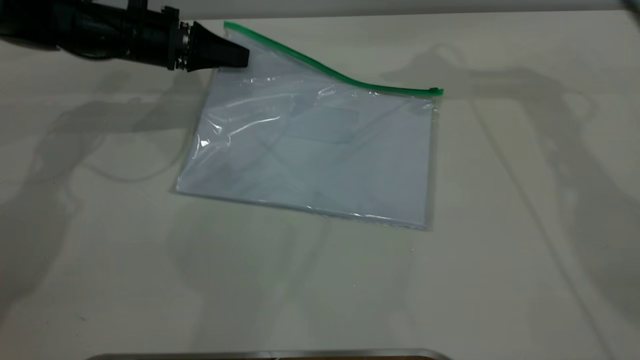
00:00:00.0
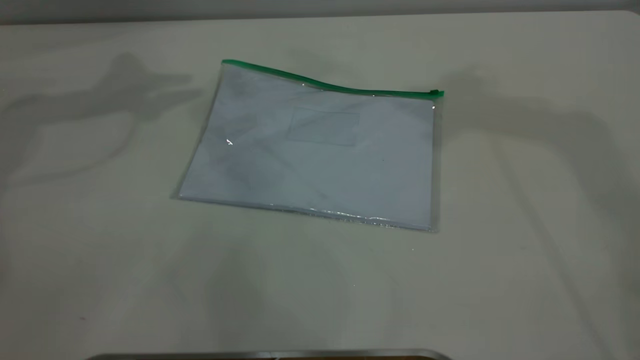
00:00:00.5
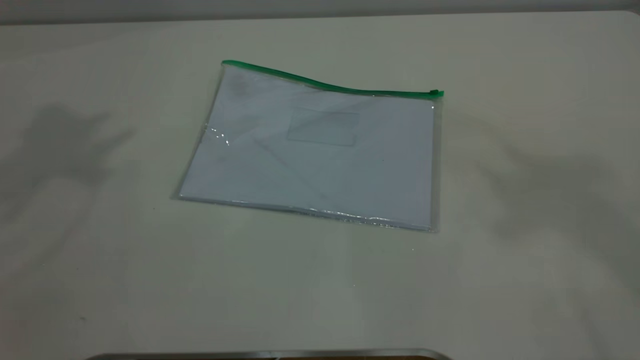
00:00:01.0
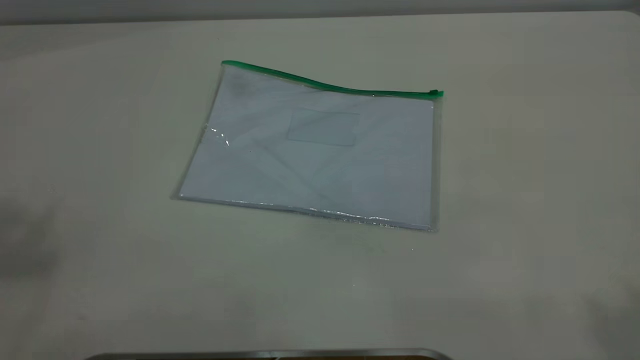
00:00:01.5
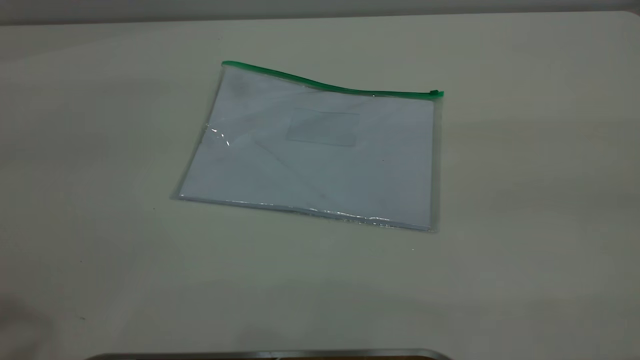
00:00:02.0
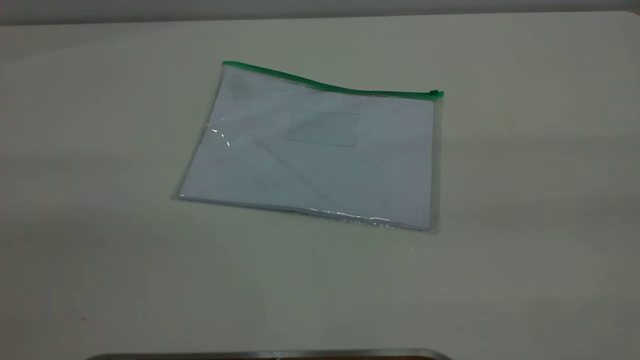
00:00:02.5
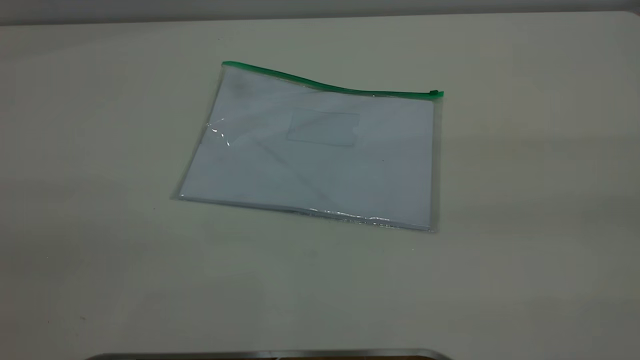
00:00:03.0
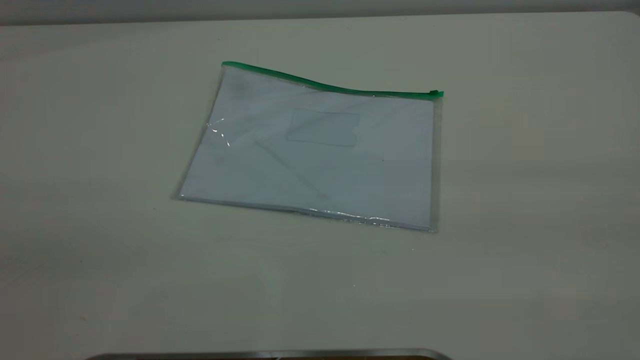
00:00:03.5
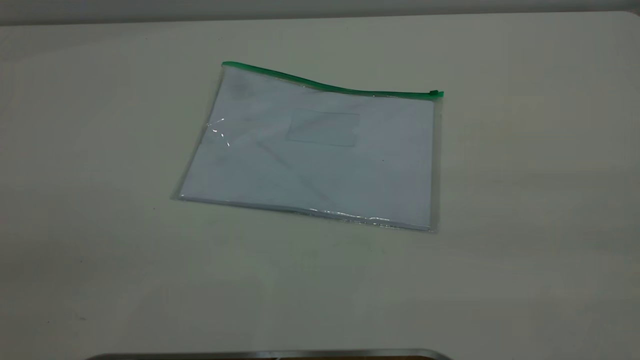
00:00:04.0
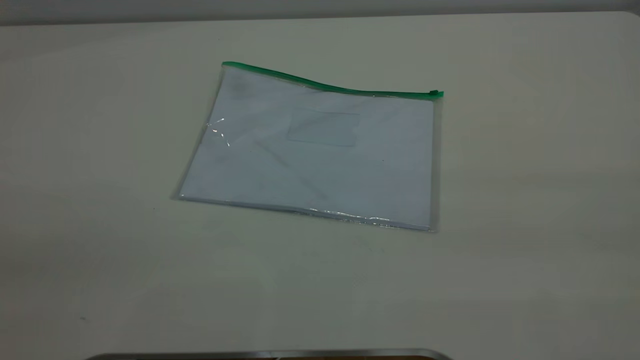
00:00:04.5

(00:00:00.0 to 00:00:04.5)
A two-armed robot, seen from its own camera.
00:00:00.0 - 00:00:02.0: The left gripper moves backward and upward, some 50 cm; the right gripper heads backward, covering about 40 cm.

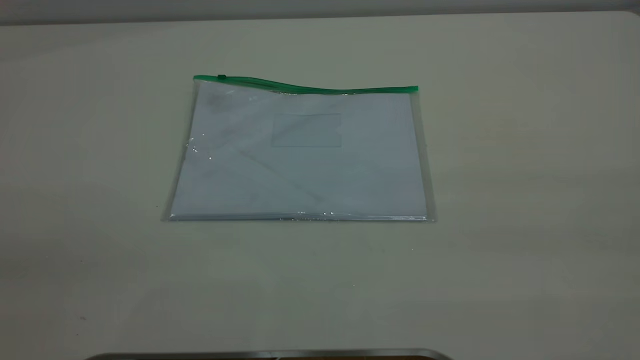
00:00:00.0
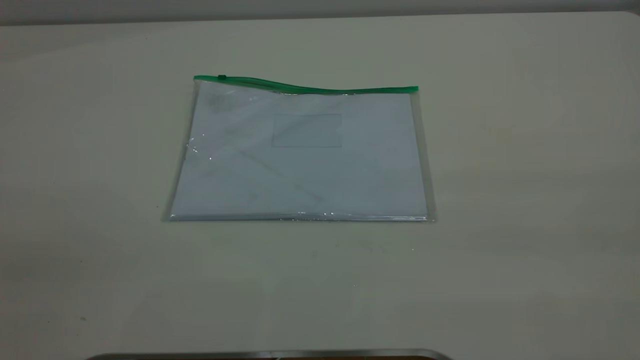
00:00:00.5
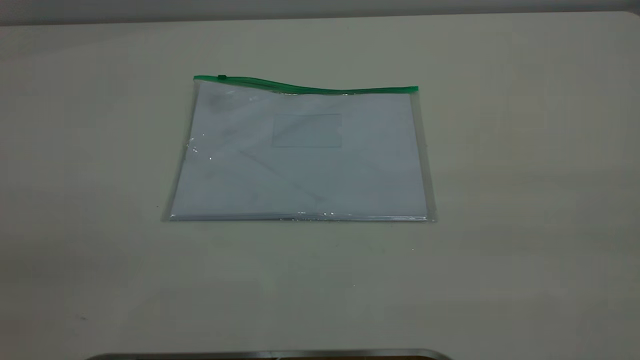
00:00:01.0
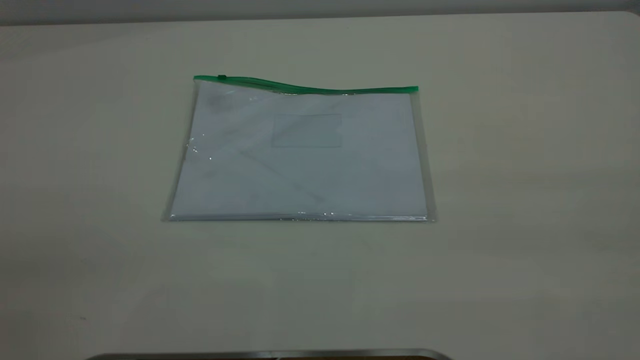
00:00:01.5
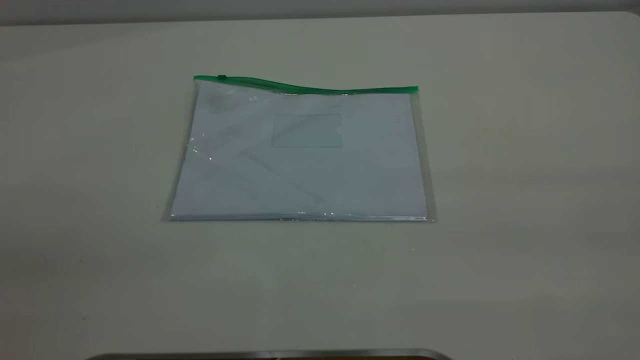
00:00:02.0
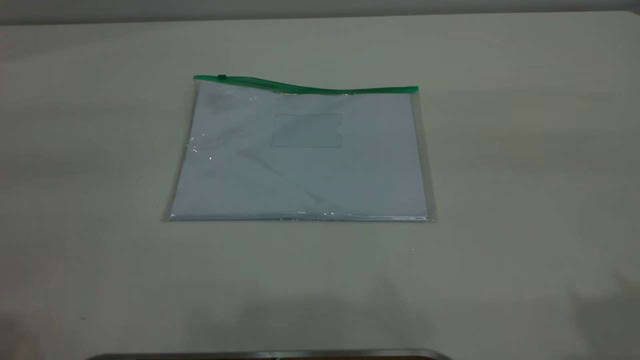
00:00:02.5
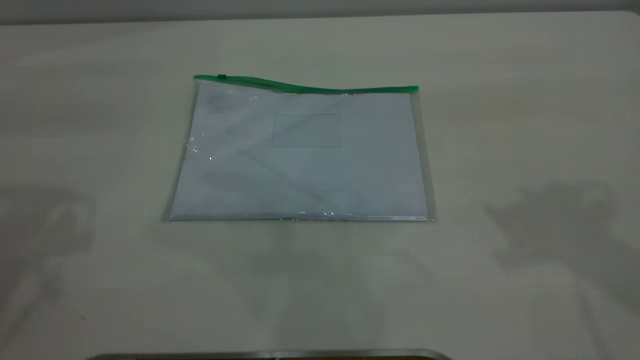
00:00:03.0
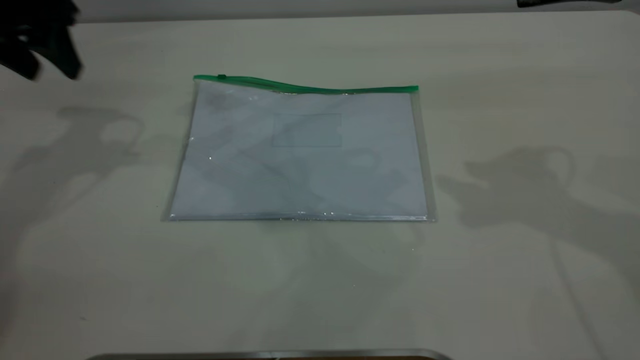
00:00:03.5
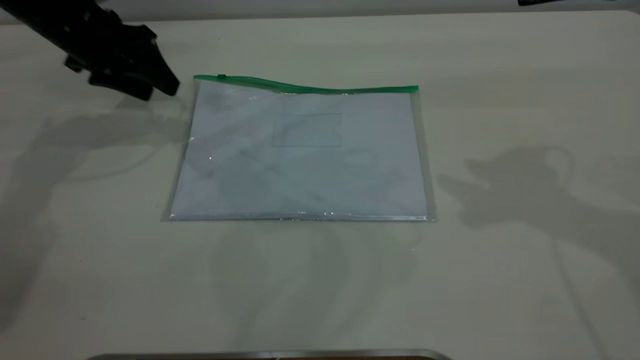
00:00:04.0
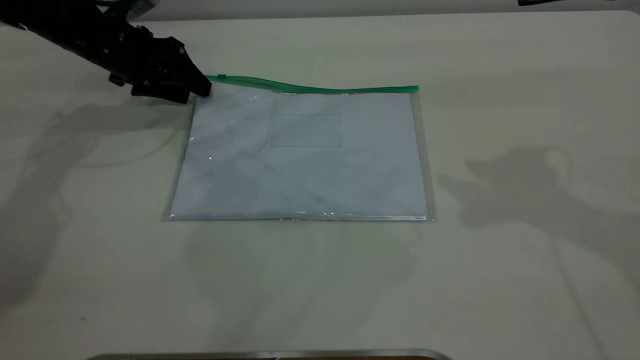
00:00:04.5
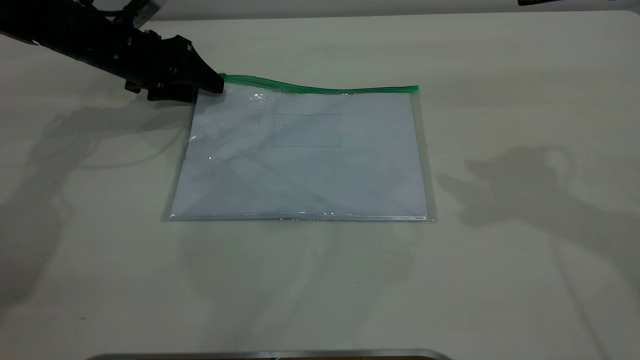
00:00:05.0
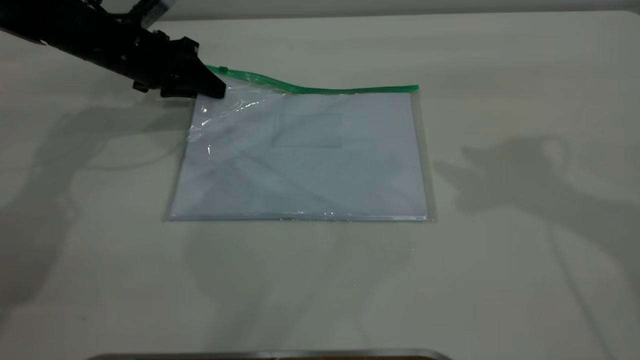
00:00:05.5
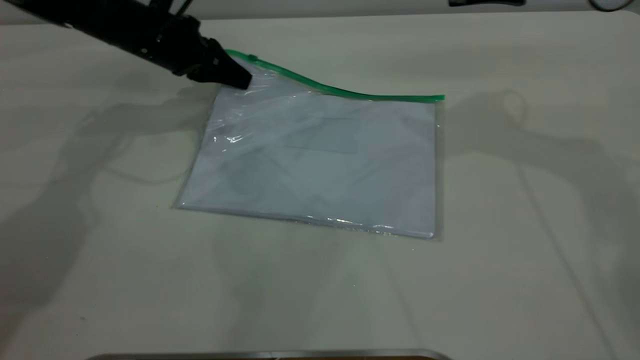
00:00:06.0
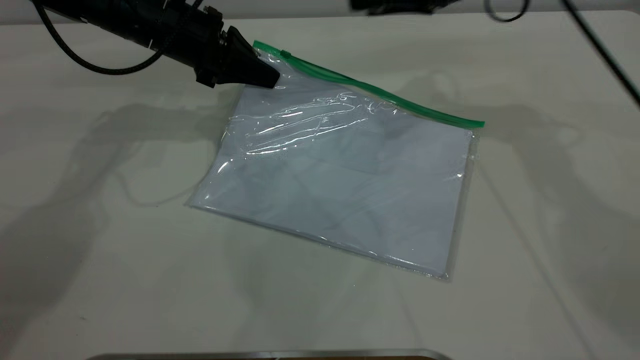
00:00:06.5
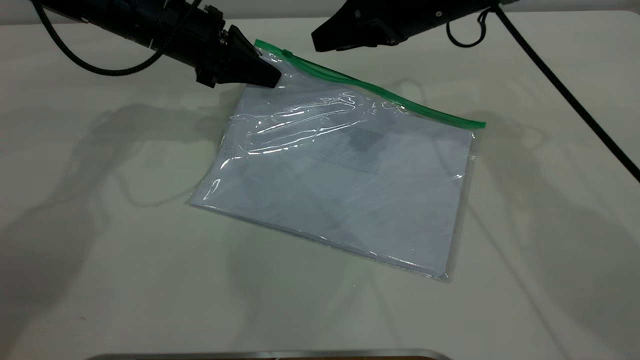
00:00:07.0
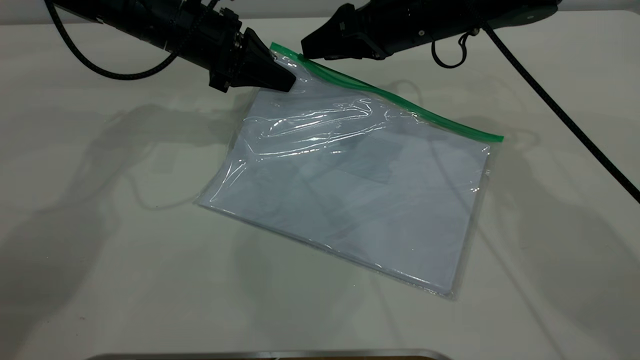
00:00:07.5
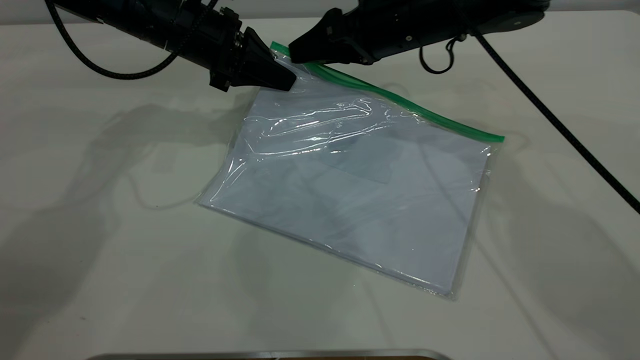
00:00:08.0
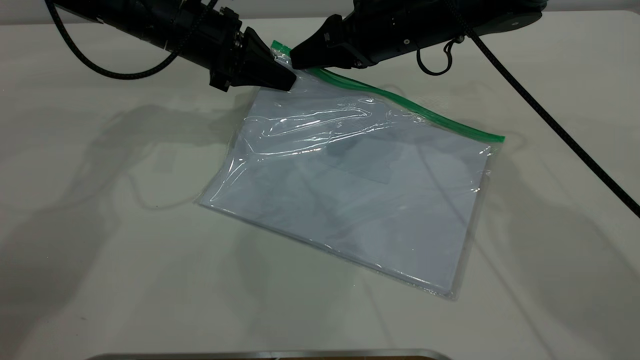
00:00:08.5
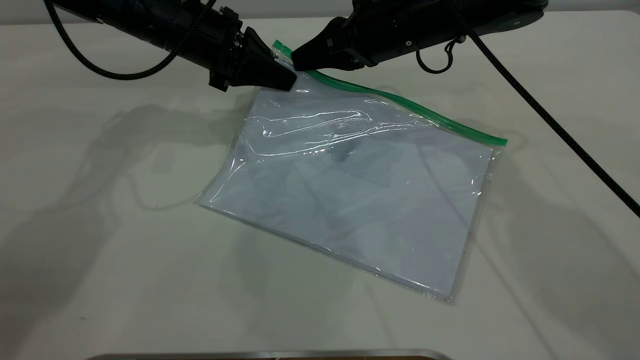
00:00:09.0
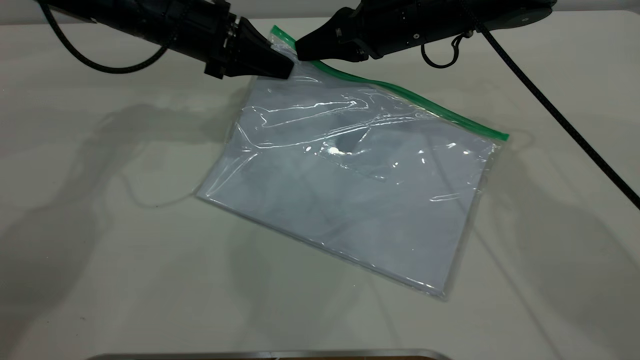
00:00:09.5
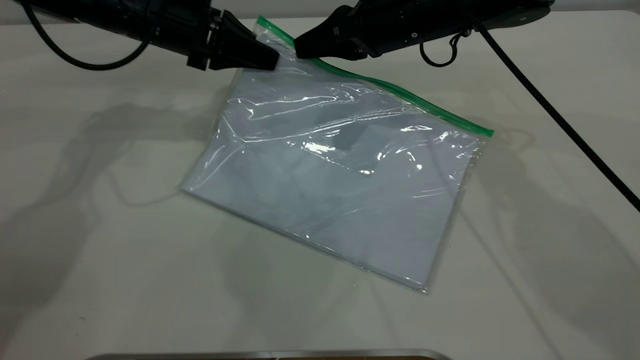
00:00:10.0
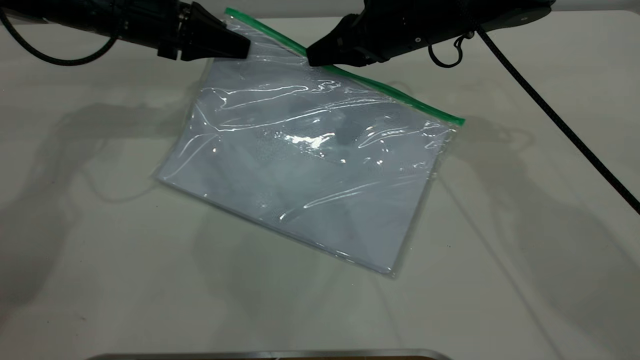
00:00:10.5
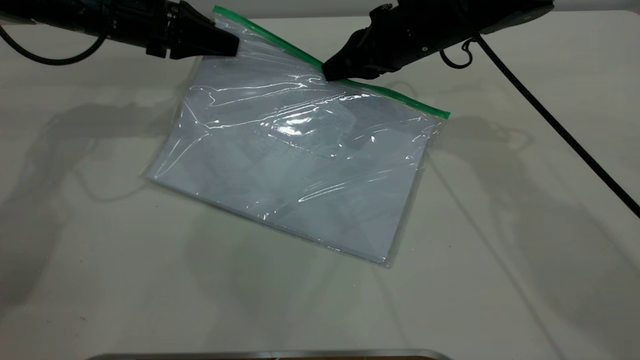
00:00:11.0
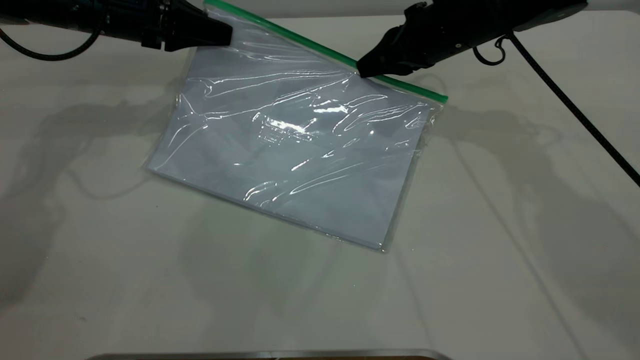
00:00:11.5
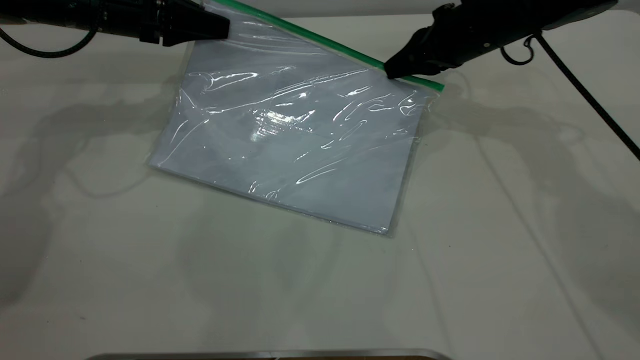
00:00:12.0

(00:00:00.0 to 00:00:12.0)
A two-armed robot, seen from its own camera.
Step, 00:00:00.0 - 00:00:05.5: Pick up the transparent plastic bag with the left gripper.
00:00:00.0 - 00:00:02.0: The two grippers keep their place.
00:00:02.0 - 00:00:04.0: The left gripper goes approximately 50 cm forward and downward.
00:00:04.0 - 00:00:06.0: The right gripper shifts some 15 cm forward and downward, while the left gripper heads to the right, covering approximately 5 cm, and closes its fingers.
00:00:06.0 - 00:00:08.0: The right gripper travels to the left and downward by approximately 15 cm; the left gripper ends up about 5 cm from where it was.
00:00:08.0 - 00:00:10.0: The right gripper closes up.
00:00:10.0 - 00:00:12.0: The left gripper is displaced to the left by some 5 cm. Meanwhile the right gripper moves to the right, about 10 cm.

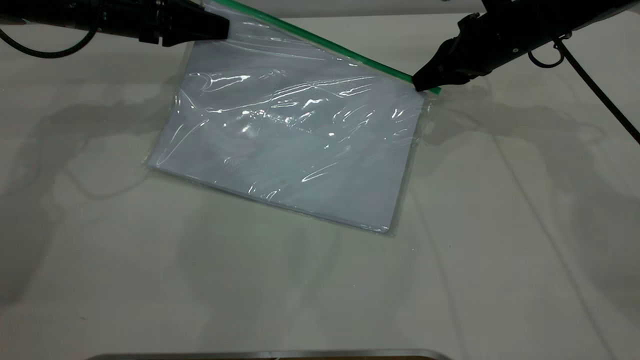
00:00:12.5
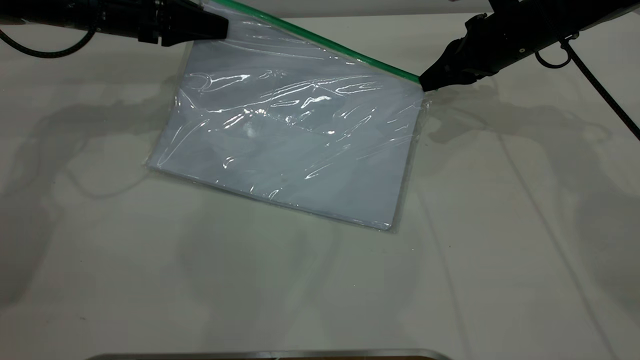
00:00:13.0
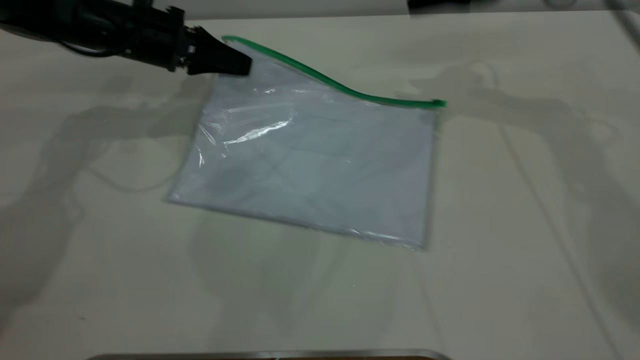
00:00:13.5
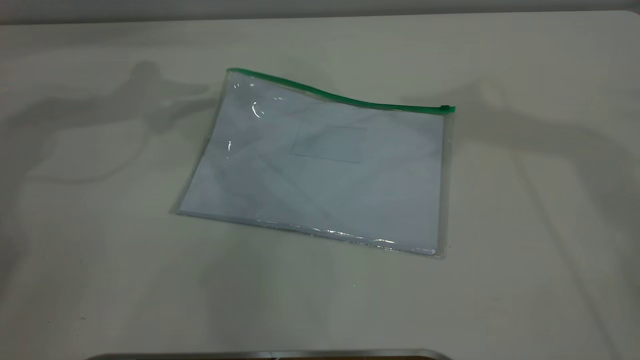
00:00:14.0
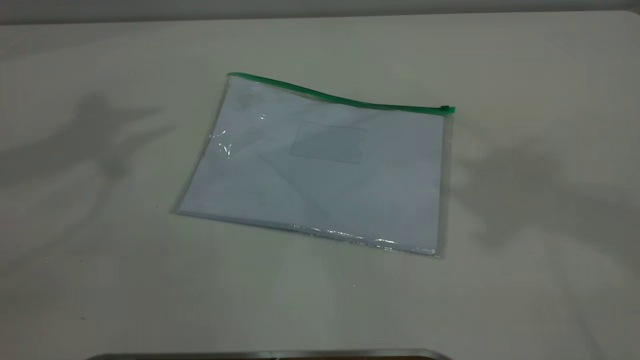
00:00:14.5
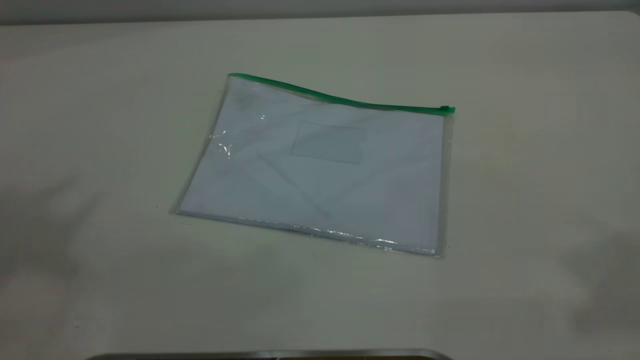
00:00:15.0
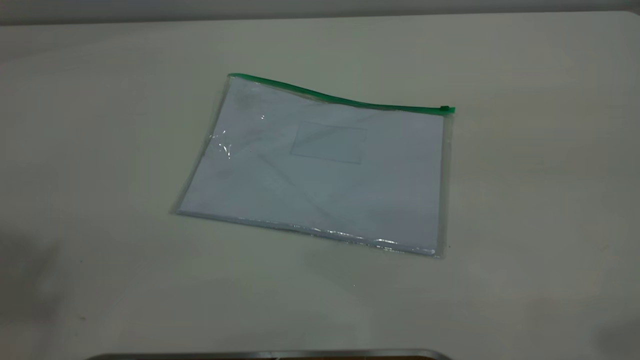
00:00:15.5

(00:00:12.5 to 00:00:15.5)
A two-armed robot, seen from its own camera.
00:00:12.5 - 00:00:14.0: The left gripper travels upward by approximately 15 cm, and opens its fingers, while the right gripper heads upward, covering some 35 cm, and opens.
